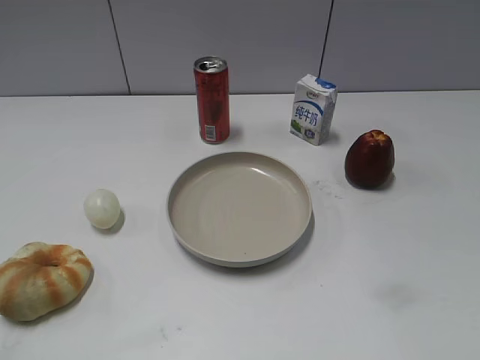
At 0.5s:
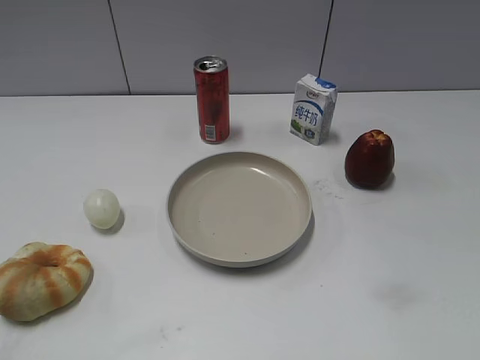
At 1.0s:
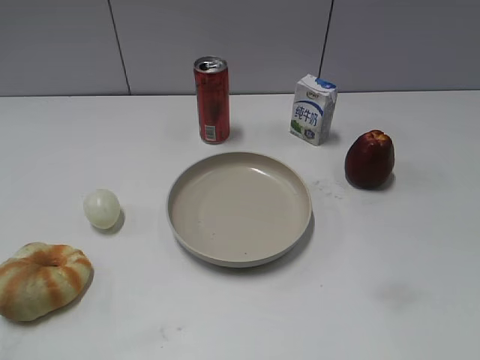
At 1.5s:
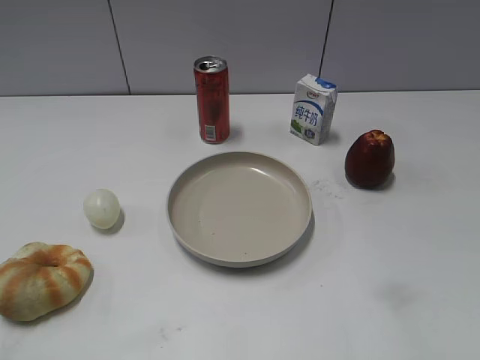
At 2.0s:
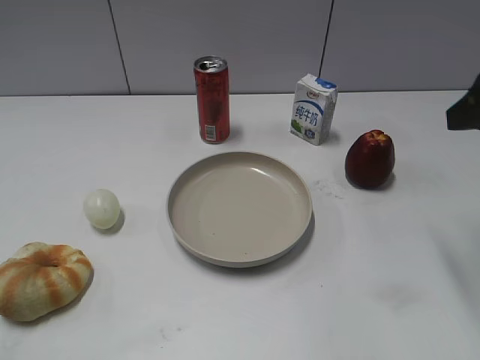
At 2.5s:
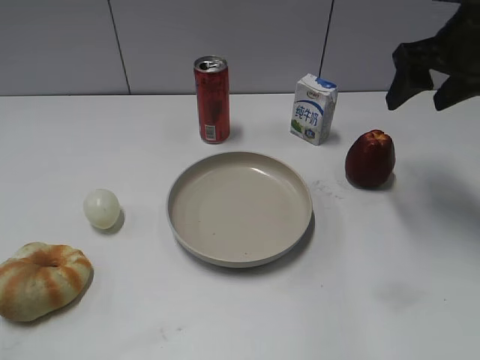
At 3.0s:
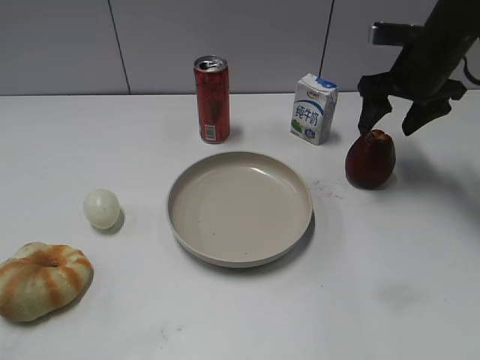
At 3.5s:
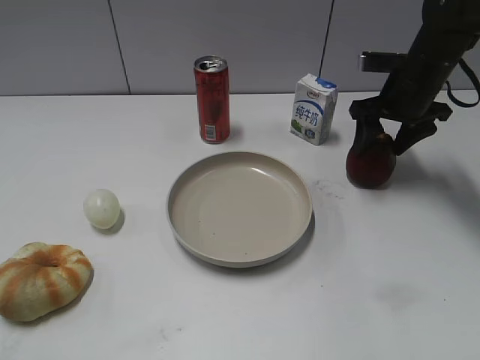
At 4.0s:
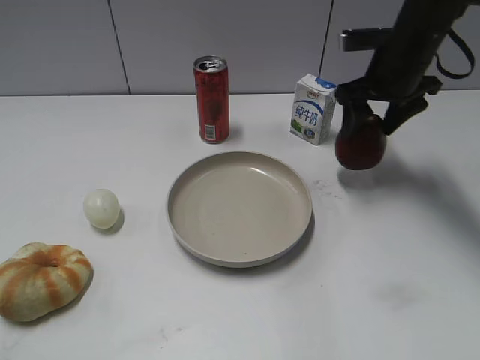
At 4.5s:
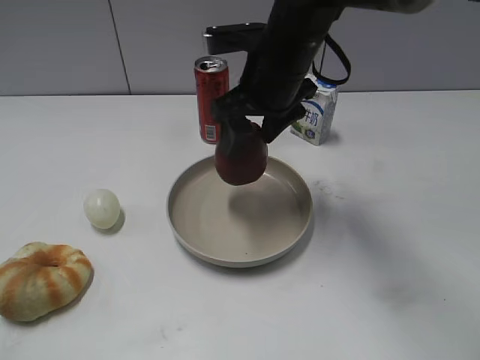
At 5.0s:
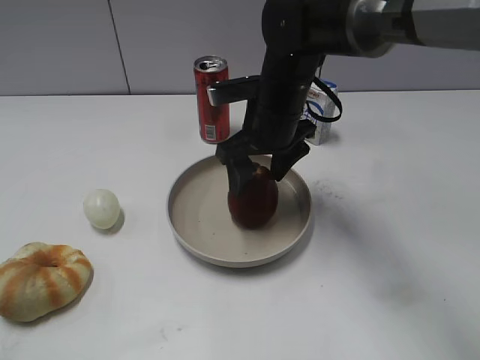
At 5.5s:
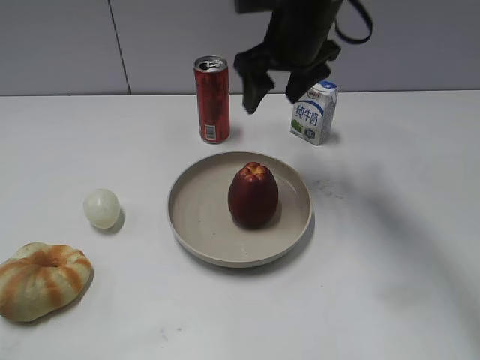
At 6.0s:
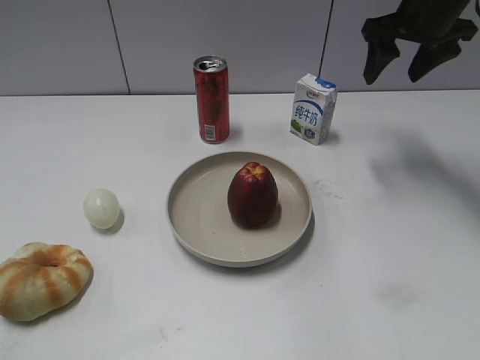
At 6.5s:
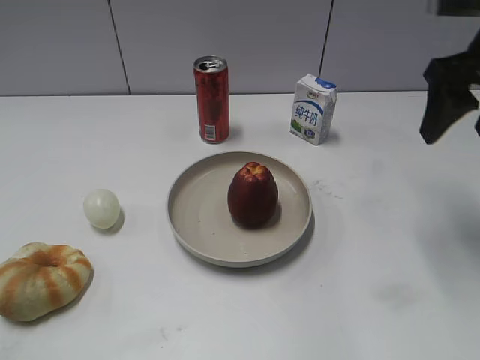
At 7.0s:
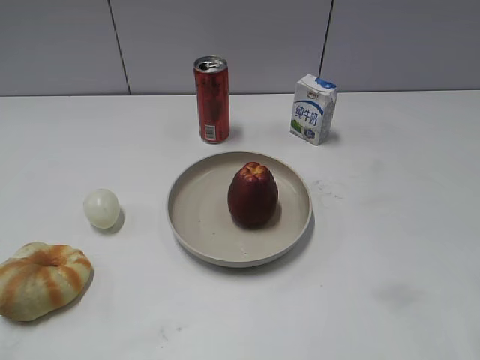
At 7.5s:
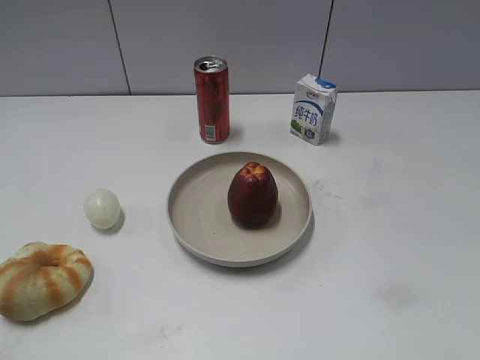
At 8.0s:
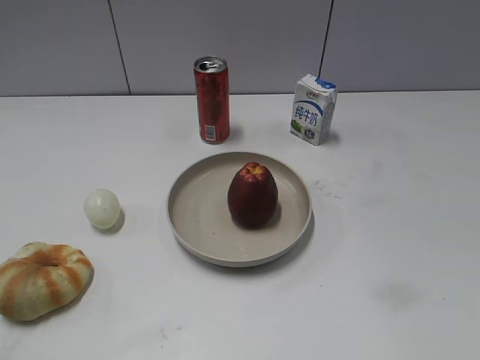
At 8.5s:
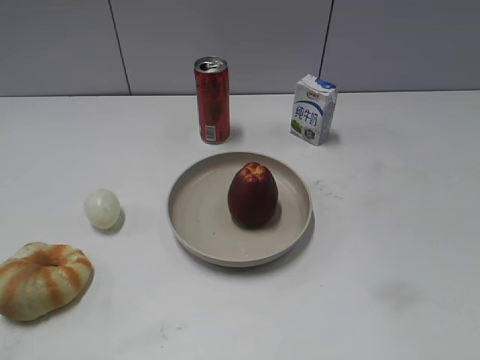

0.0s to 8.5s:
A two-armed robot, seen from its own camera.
Step, 2.0s to 3.5s: Grasp the apple with right gripper.
Step, 4.0s to 5.0s: Place the apple on the plate with right gripper.
2.0s to 4.0s: The right gripper travels forward, downward and to the left by about 20 cm.
4.0s to 6.5s: The right gripper heads backward and upward, covering approximately 15 cm, and travels to the left and back again, some 15 cm each way.
6.5s to 8.5s: The right gripper heads backward, covering about 30 cm.

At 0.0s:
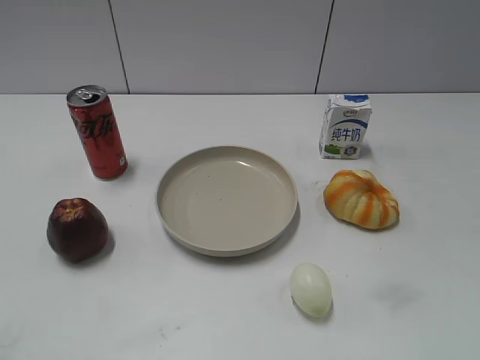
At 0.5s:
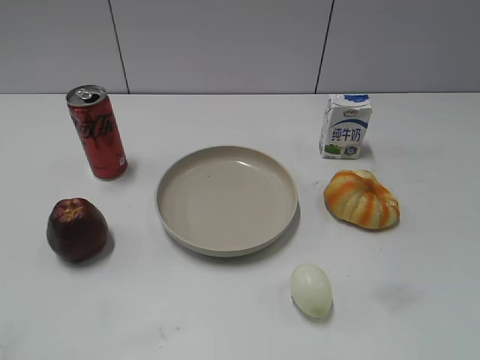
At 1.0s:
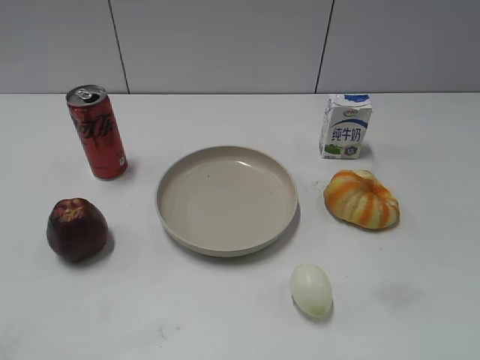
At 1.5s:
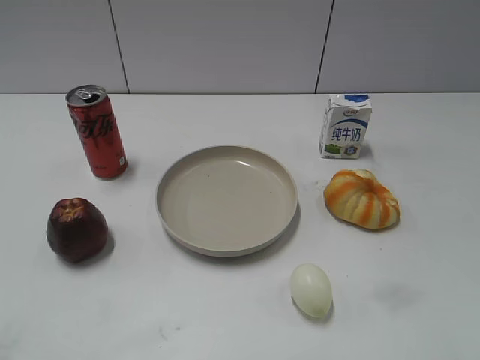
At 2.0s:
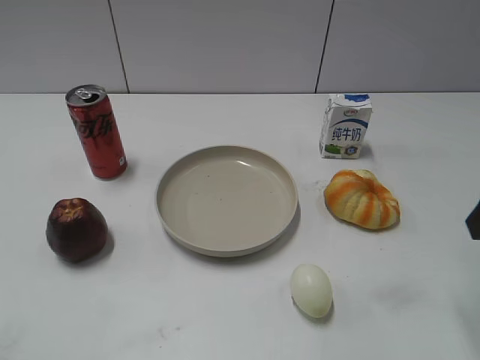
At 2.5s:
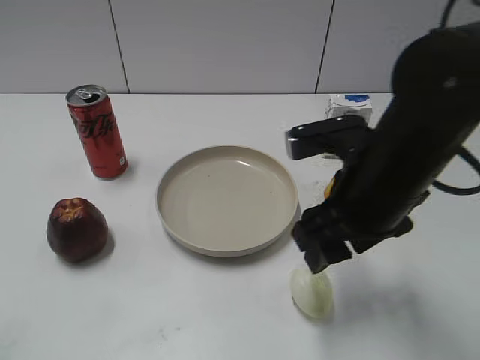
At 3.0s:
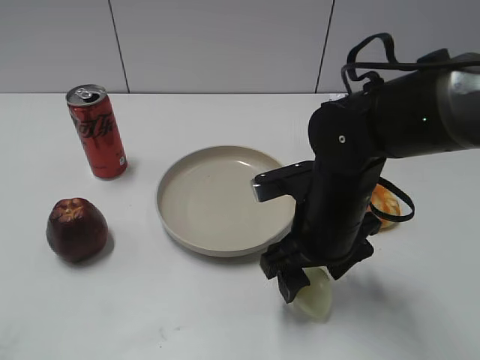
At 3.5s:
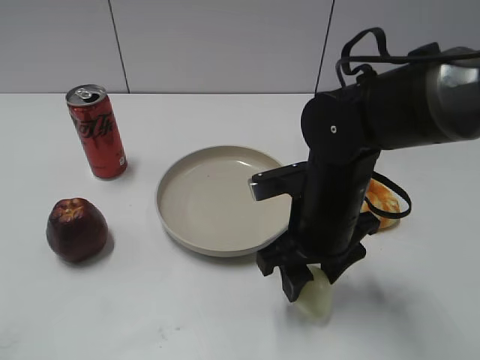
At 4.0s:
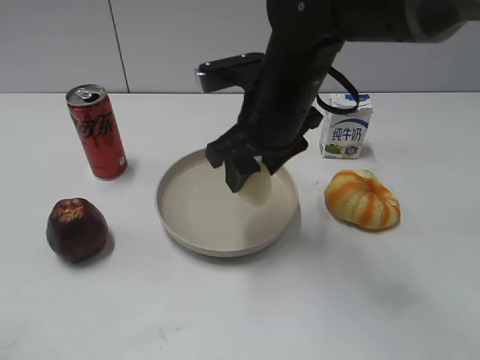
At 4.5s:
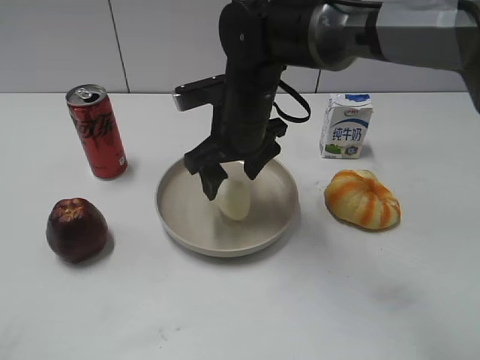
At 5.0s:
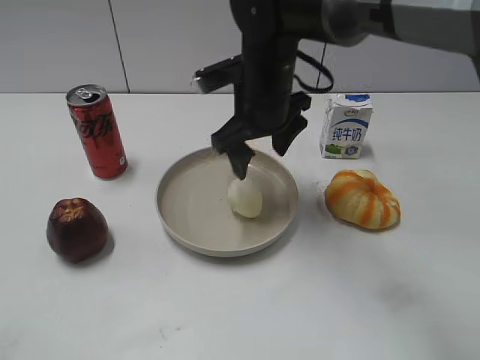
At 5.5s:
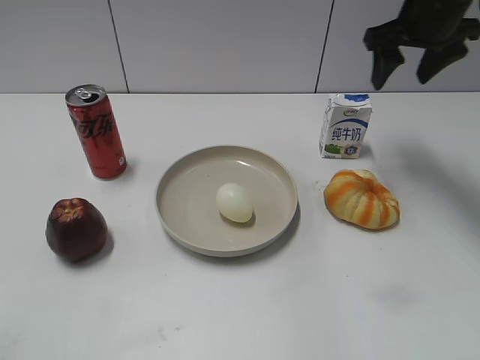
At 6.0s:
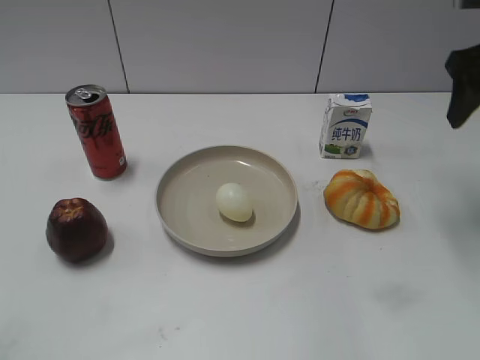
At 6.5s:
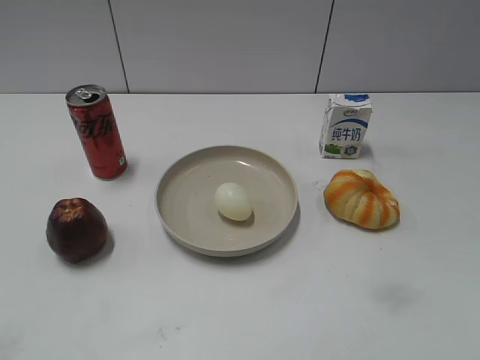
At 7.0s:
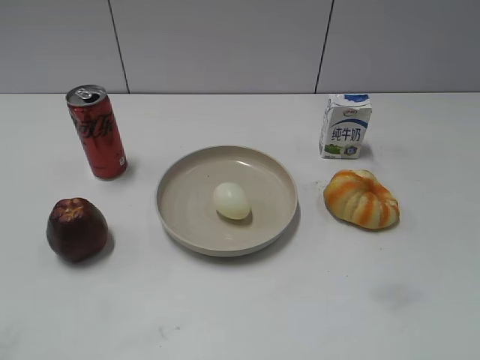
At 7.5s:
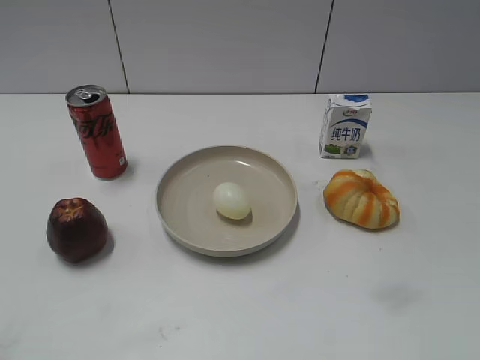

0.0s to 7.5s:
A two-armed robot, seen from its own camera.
Step, 1.0s to 3.0s: Grasp the egg with right gripper.
Step, 3.5s to 5.0s: Place the egg on the plate with right gripper.
2.0s to 4.0s: The right gripper shifts some 25 cm to the left and forward, and closes its fingers.
4.0s to 5.5s: The right gripper goes roughly 20 cm to the right and forward, and opens.
5.5s to 7.5s: The right gripper shifts approximately 40 cm backward.
